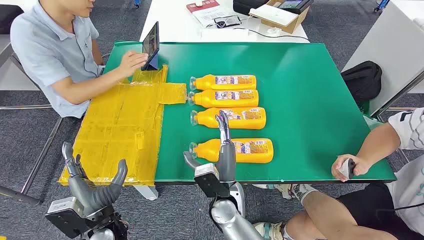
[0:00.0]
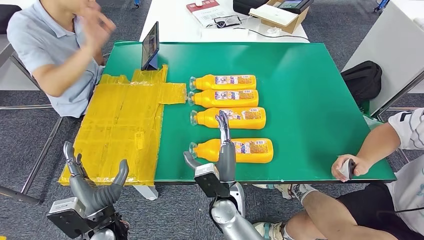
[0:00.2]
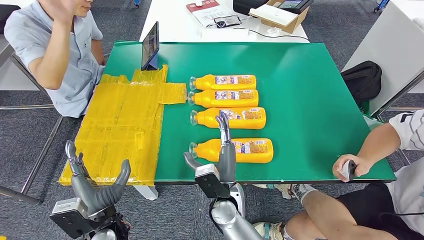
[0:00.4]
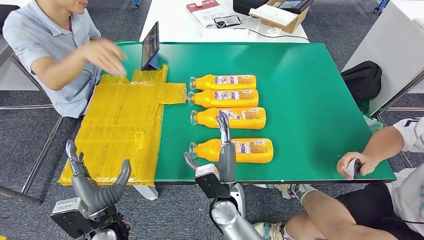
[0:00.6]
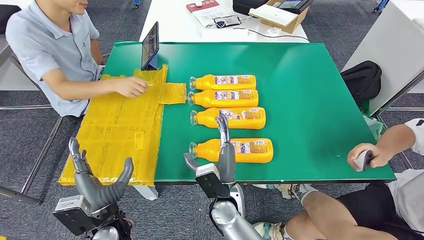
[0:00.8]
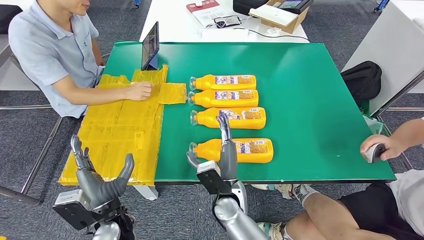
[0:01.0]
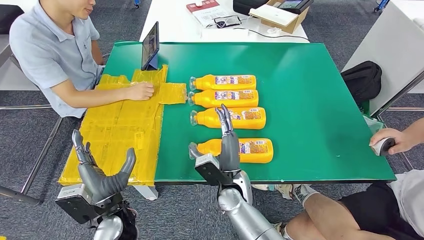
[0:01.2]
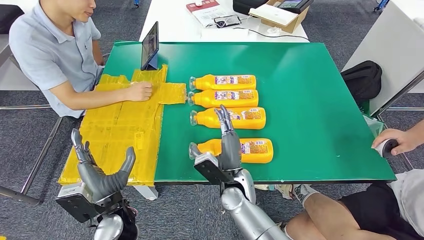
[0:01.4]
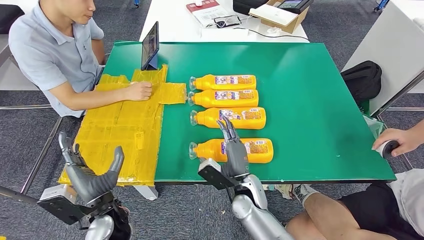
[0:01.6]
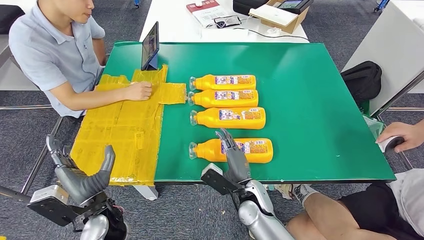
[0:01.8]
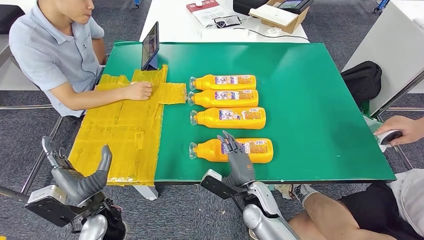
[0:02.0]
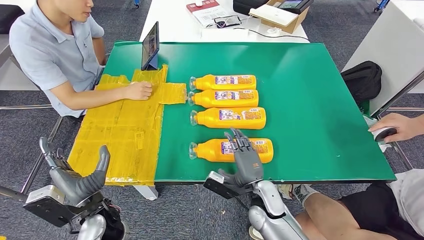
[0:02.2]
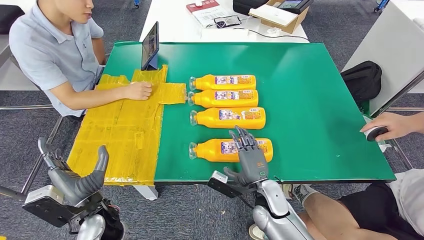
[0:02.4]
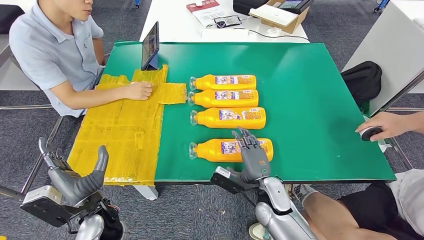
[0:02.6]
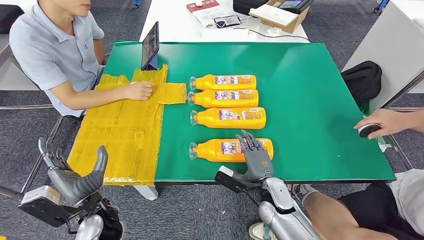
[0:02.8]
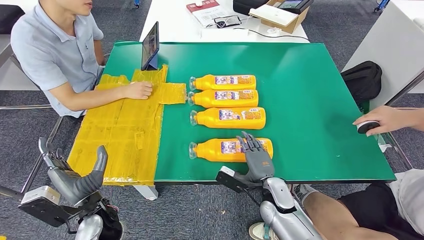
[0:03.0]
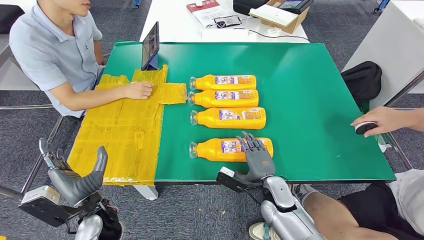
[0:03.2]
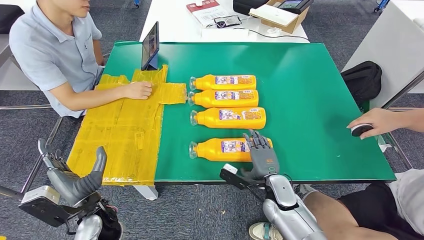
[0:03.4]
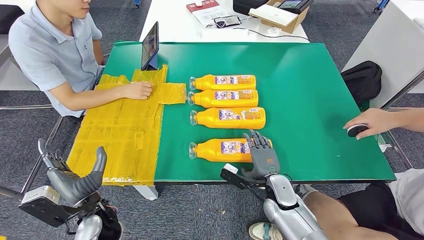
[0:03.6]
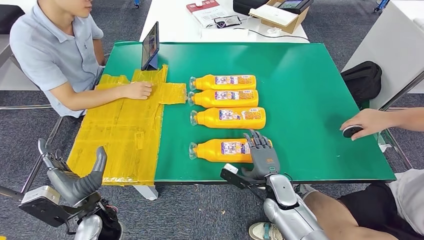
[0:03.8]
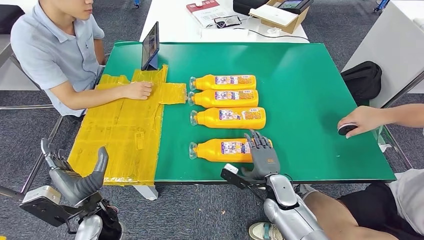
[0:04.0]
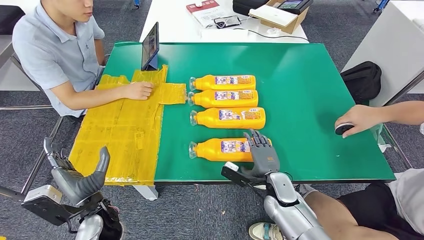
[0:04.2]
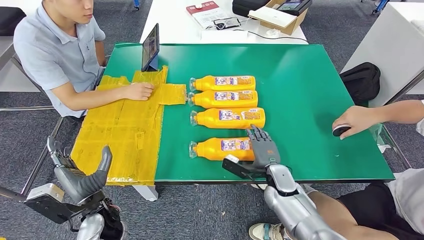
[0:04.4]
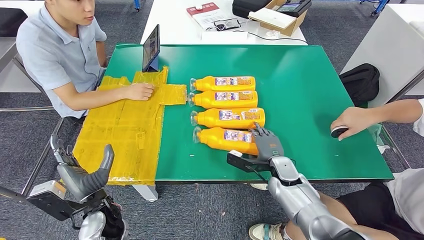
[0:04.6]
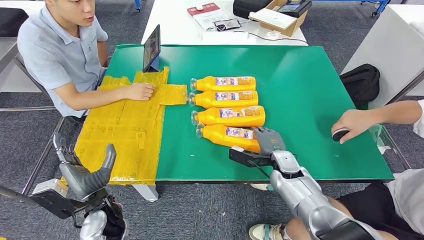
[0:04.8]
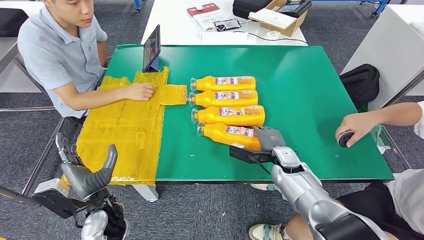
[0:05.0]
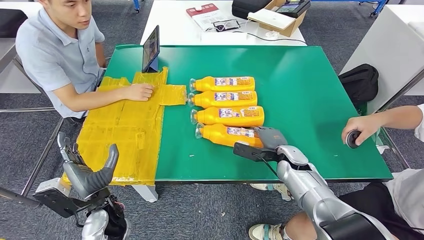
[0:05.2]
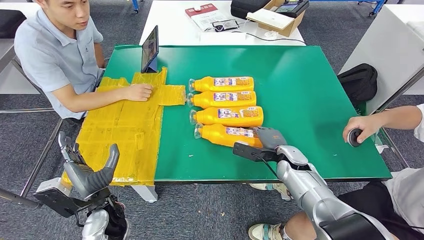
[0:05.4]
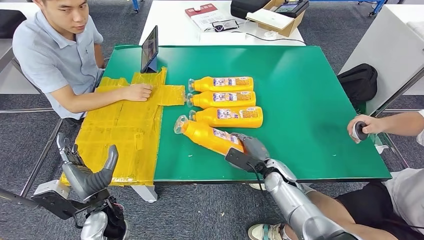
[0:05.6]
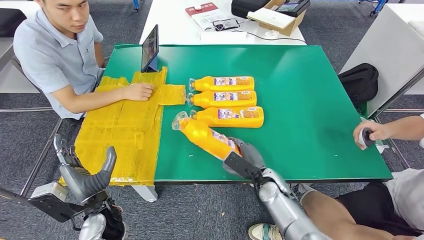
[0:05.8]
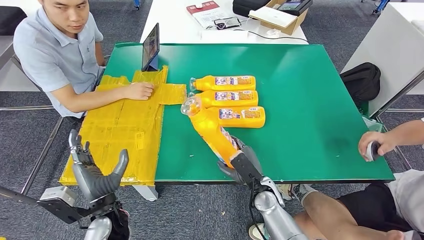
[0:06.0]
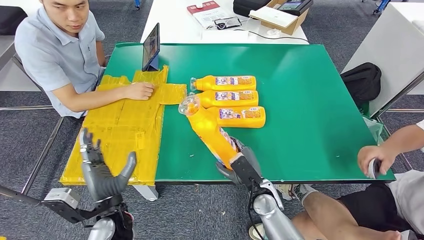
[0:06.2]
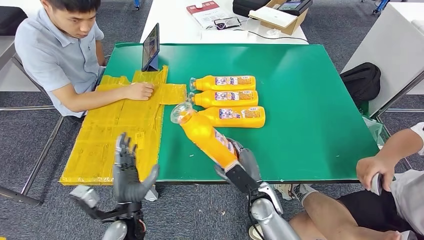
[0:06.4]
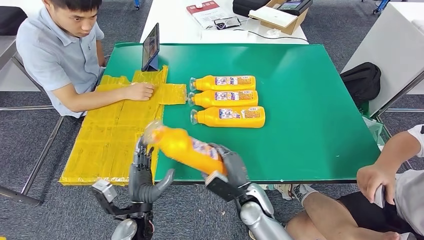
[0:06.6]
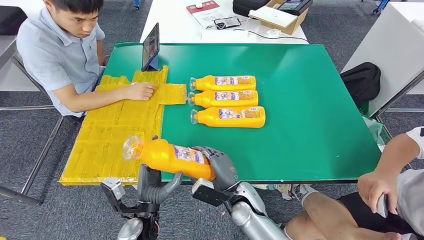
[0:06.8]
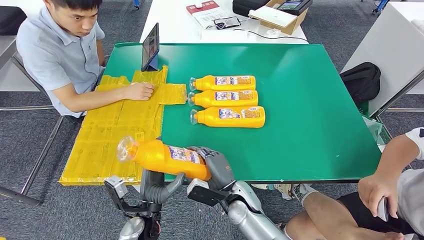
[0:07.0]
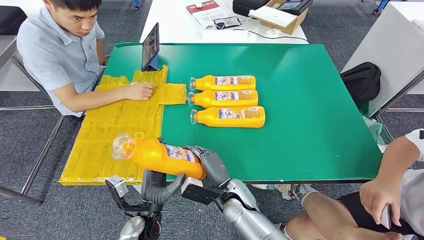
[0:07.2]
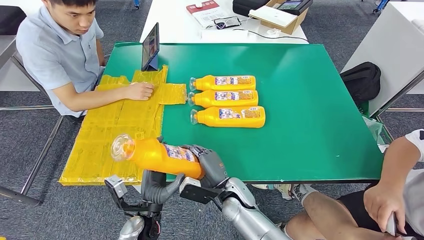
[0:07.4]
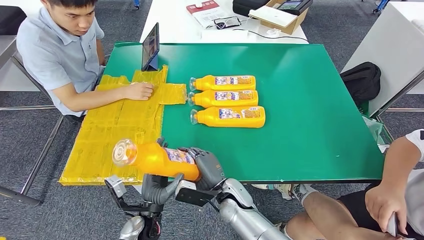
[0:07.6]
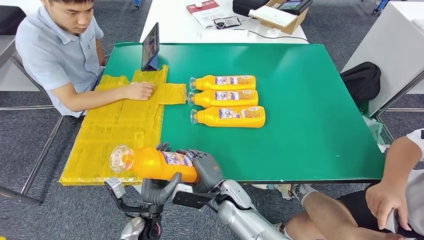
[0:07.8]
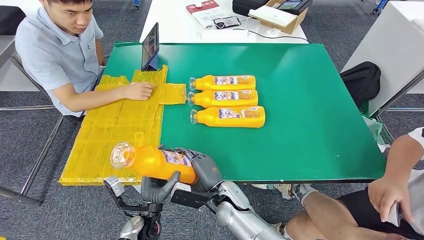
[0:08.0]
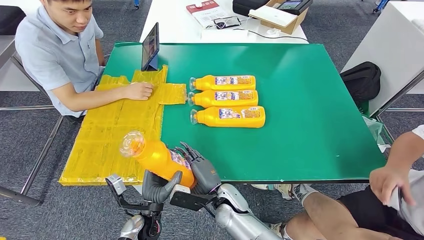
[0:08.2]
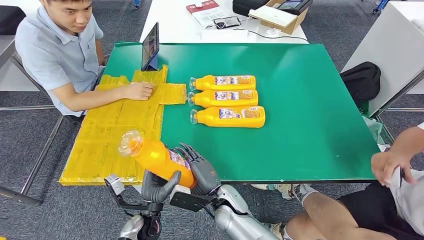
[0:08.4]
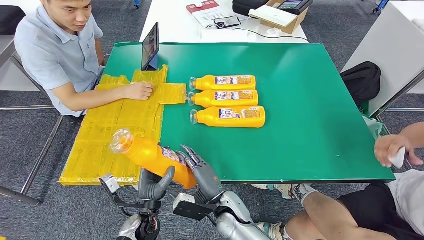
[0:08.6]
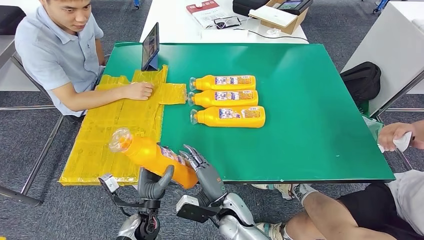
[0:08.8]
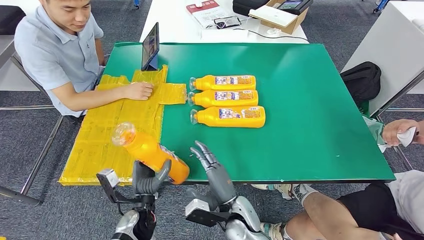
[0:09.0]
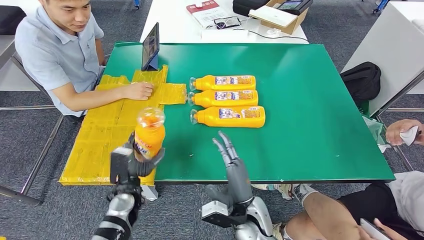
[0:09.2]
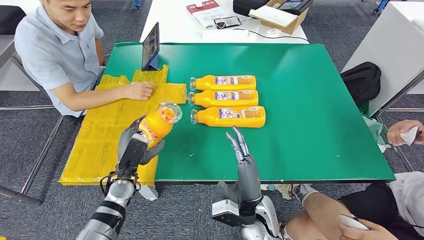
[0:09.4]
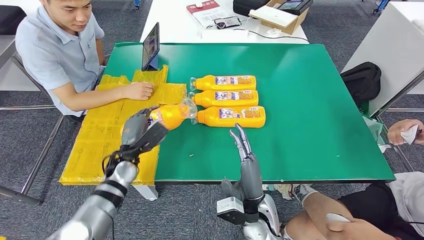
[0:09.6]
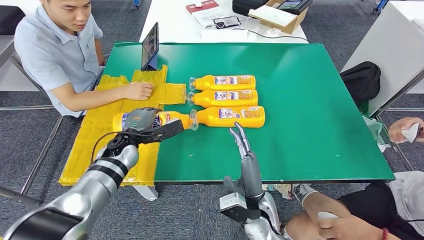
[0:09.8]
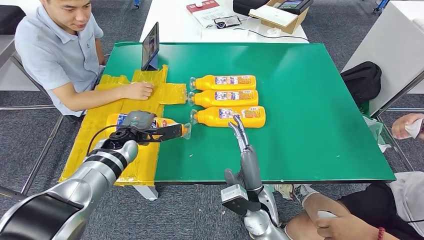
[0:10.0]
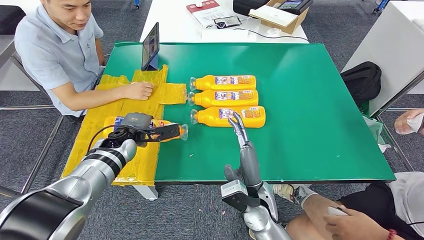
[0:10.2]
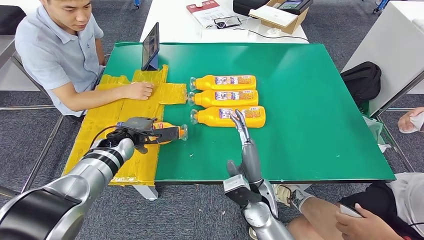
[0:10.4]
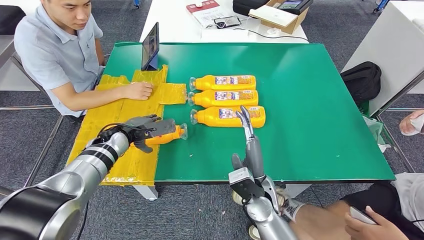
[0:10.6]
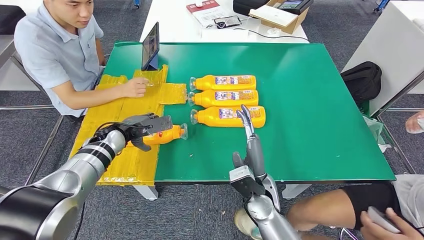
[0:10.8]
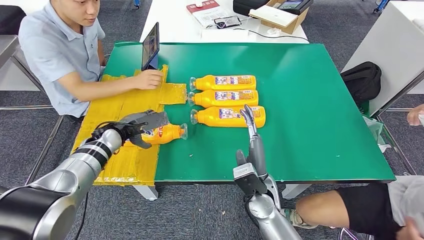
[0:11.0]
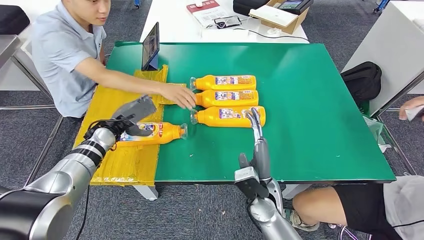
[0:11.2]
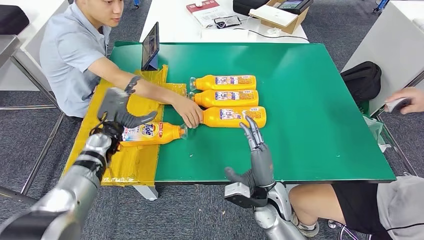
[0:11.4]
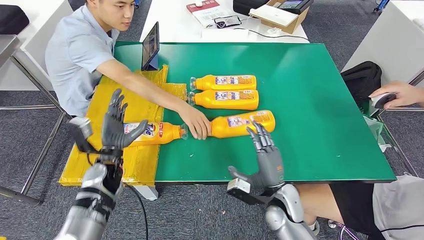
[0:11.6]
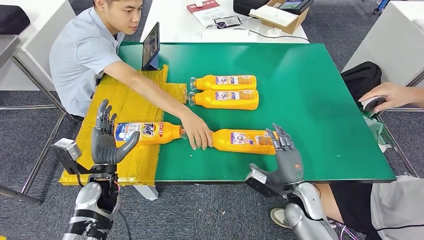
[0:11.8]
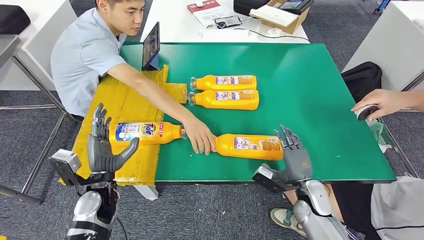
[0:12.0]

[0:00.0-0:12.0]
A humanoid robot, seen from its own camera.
Step, 0:00.0 to 0:07.0: Take the bottle from the table.
Step, 0:07.2 to 0:11.4: Flip the bottle to face forward.
0:01.6 to 0:03.0: The right hand travels to the right by about 10 cm.
0:03.0 to 0:04.4: The hands make only small movements.
0:04.4 to 0:06.0: The right hand shifts by some 5 cm.
0:07.6 to 0:09.0: The right hand ends up roughly 5 cm from where it was.
0:09.0 to 0:10.4: The left hand goes about 20 cm forward and upward. The right hand goes approximately 5 cm upward and to the right.

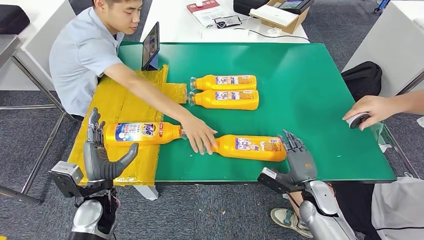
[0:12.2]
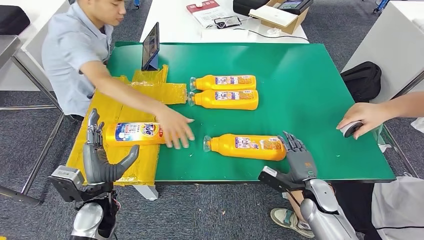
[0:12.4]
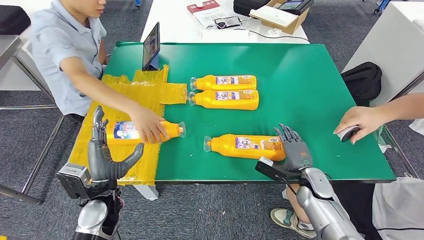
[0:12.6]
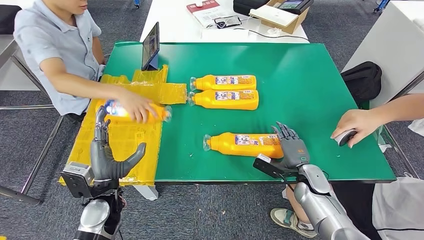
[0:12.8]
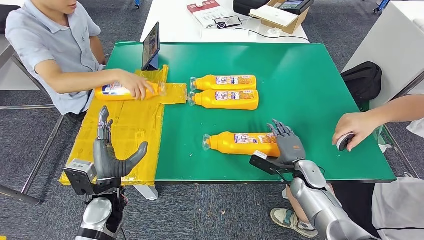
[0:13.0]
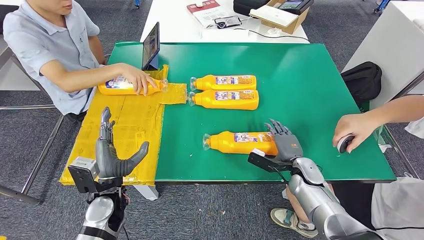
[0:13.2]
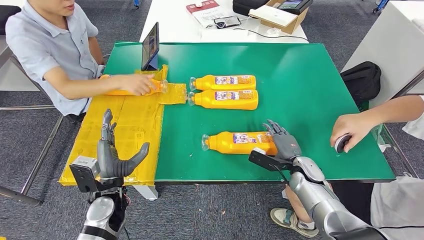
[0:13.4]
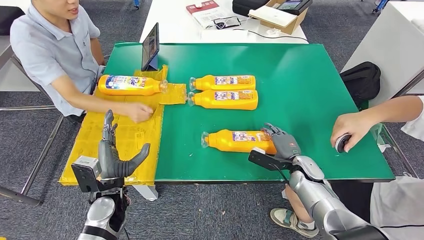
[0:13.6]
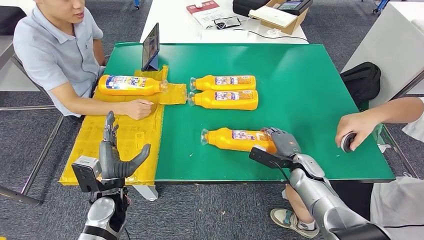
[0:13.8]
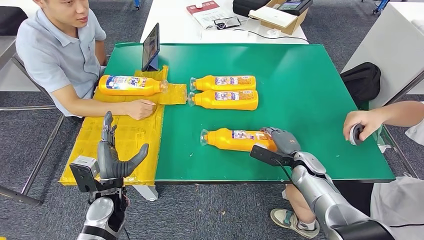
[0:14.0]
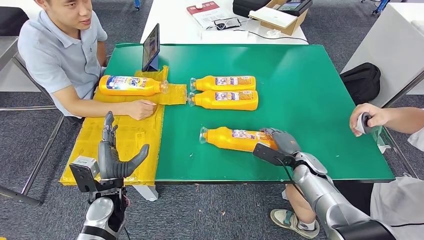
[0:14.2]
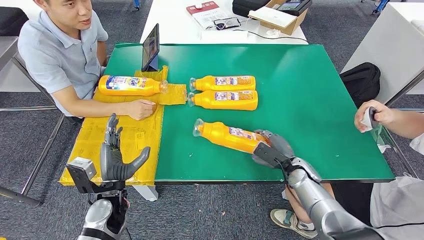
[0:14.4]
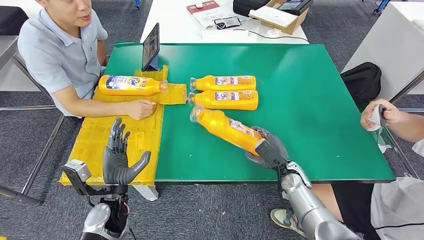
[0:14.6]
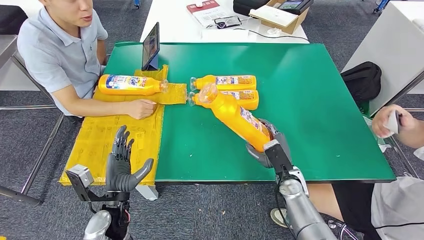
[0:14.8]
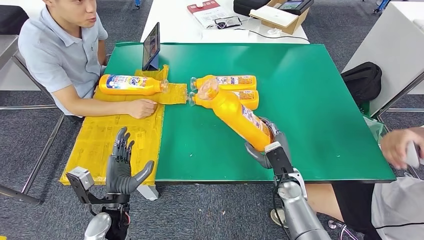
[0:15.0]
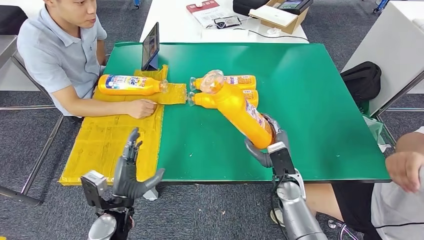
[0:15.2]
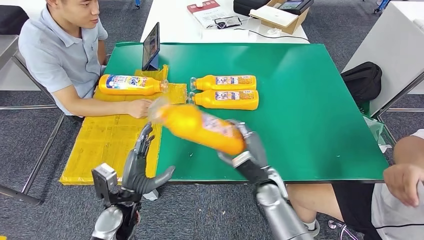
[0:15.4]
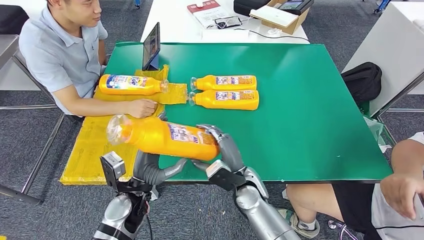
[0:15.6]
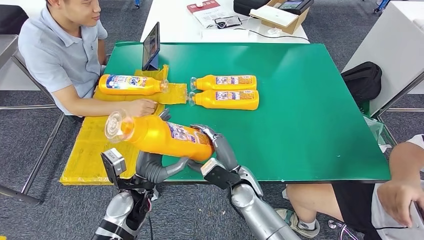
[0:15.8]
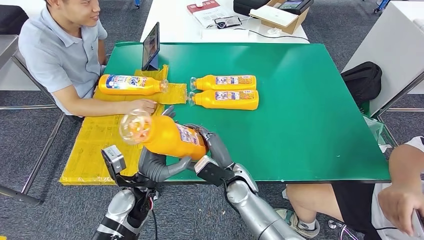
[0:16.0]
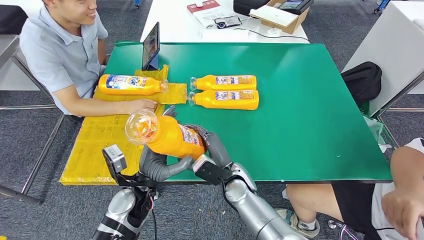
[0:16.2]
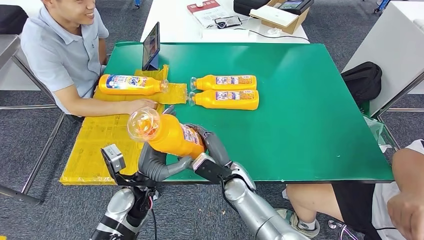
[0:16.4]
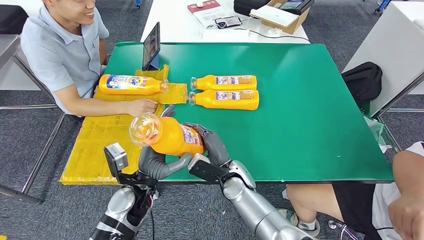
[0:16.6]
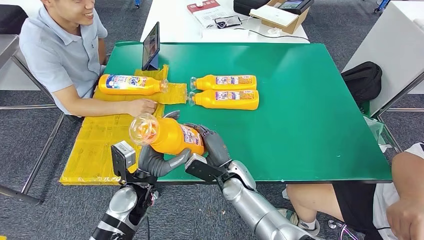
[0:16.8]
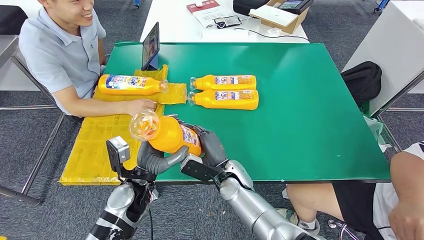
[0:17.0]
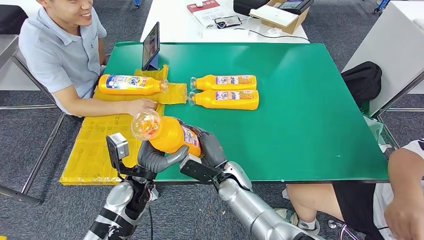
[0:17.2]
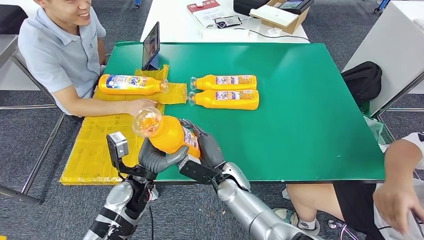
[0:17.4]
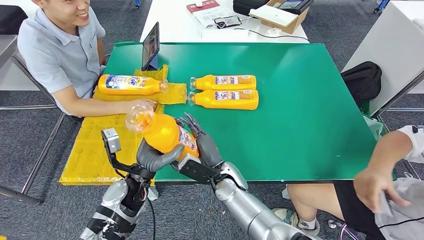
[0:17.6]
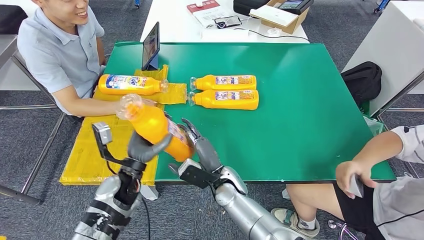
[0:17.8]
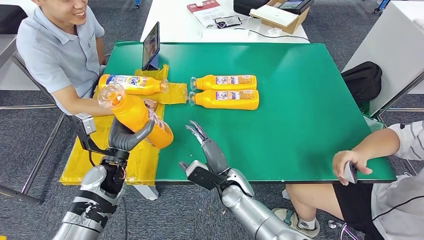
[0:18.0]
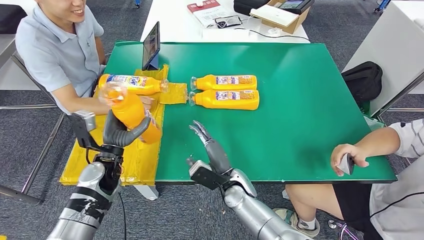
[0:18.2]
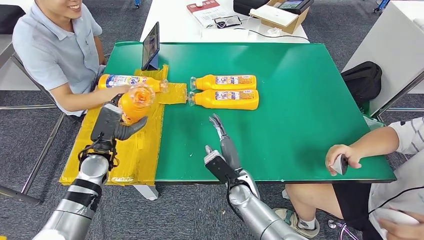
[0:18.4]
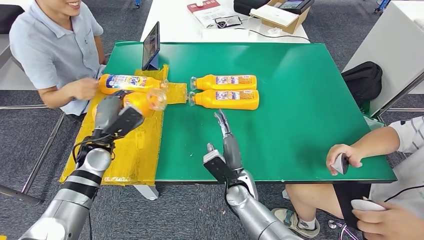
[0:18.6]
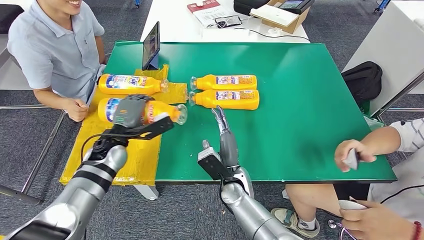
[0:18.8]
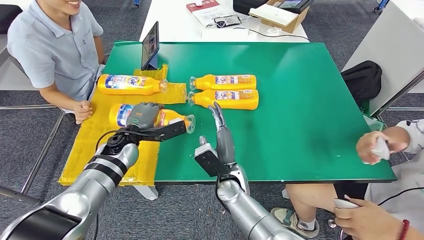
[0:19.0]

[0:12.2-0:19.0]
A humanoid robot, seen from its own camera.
Step, 0:12.2 to 0:15.2: Pick up the bottle from the table.
0:15.0 to 0:16.2: The right hand moves to the left, about 15 cm. The left hand is displaced to the right and upward by approximately 10 cm.
0:16.2 to 0:17.6: The hands move only a little.
